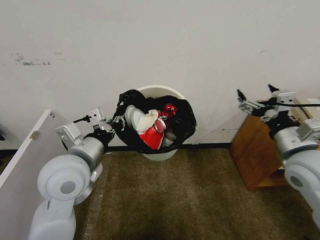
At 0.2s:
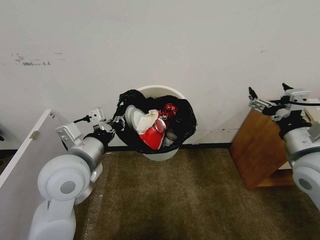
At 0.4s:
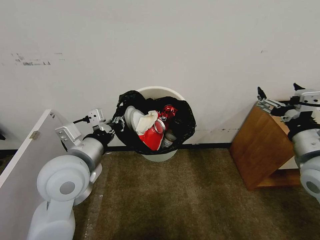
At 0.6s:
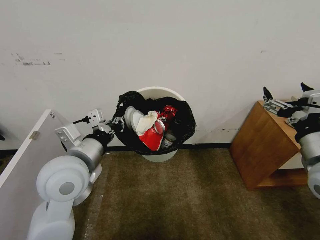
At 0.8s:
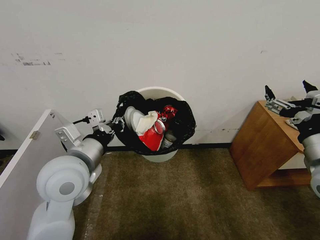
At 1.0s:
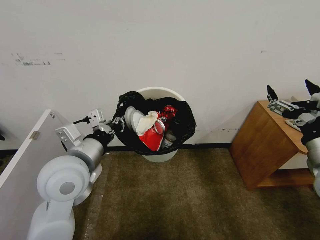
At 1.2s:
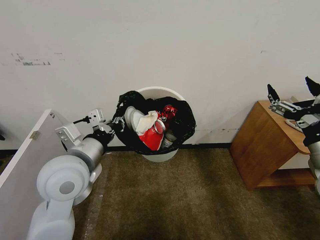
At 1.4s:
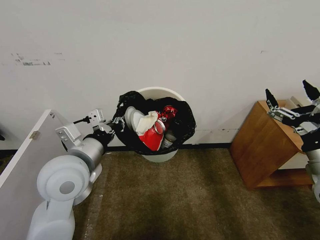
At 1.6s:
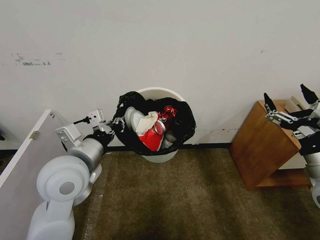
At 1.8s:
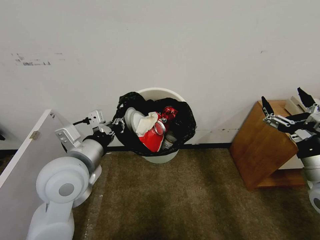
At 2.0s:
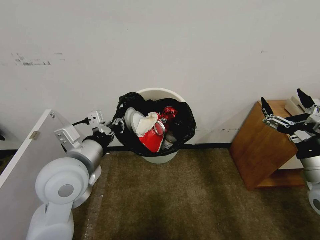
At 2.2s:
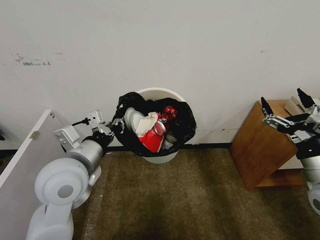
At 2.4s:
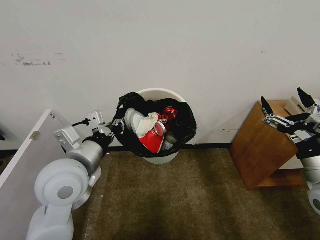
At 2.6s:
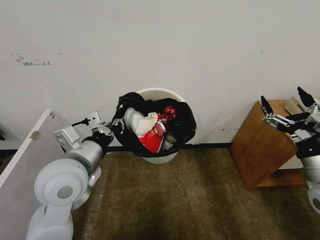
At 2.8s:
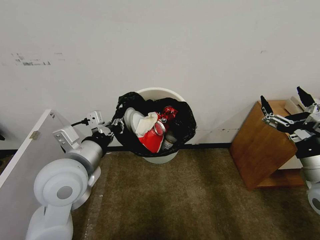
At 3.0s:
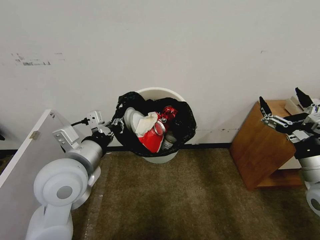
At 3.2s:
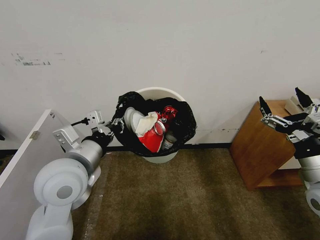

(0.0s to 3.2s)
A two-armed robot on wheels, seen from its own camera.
Task of the whole recording: Pick up the trash bin, then pick up the garbage from the floor and place it into the trash bin.
0.0s - 1.6s: The right gripper travels to the right by approximately 5 cm.
1.6s - 3.2s: Both grippers stay put.
